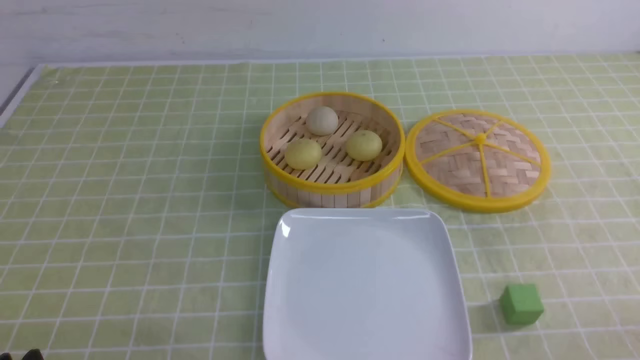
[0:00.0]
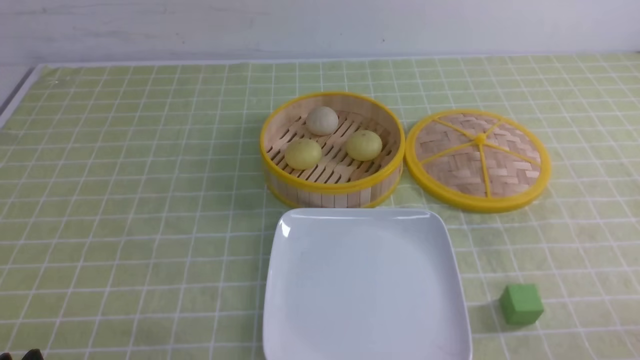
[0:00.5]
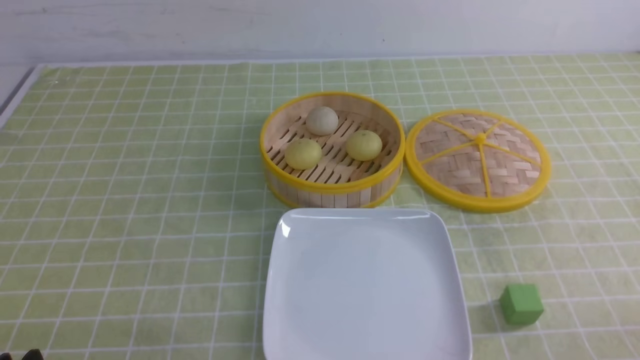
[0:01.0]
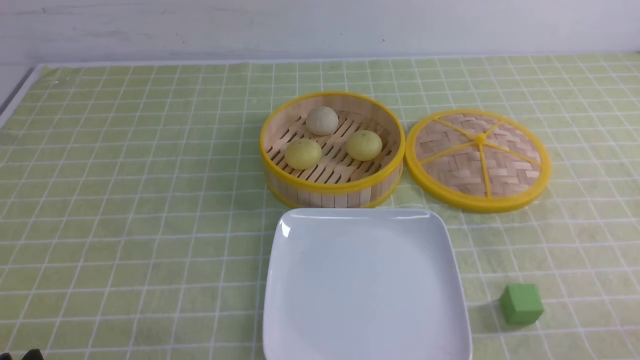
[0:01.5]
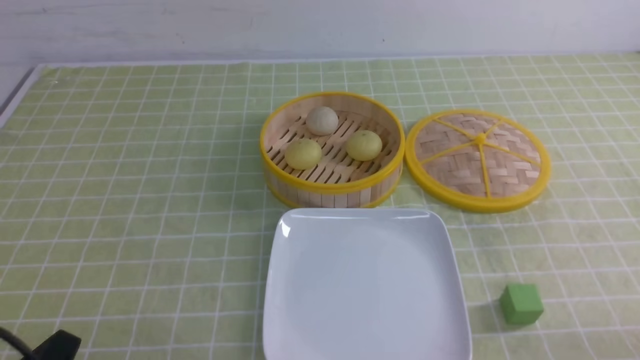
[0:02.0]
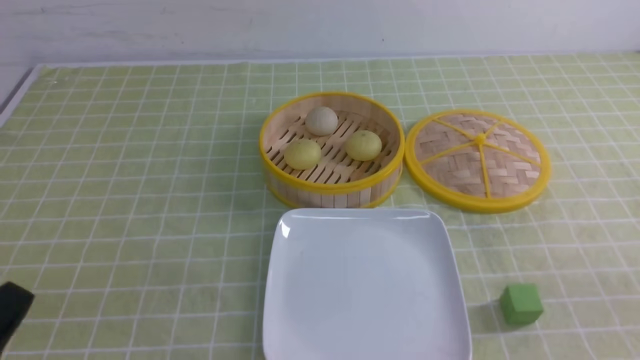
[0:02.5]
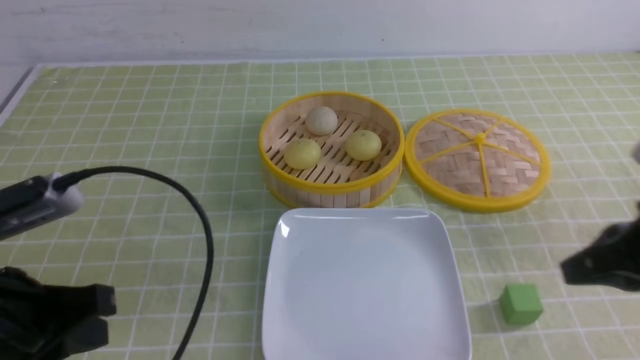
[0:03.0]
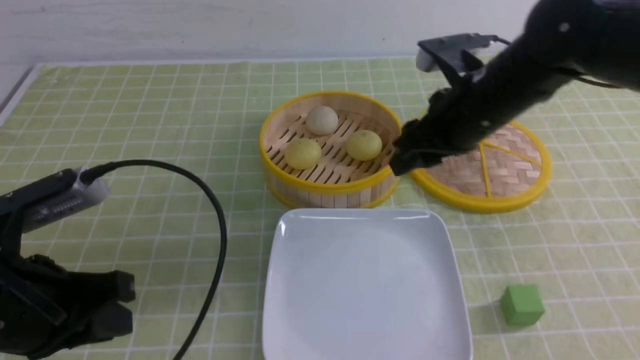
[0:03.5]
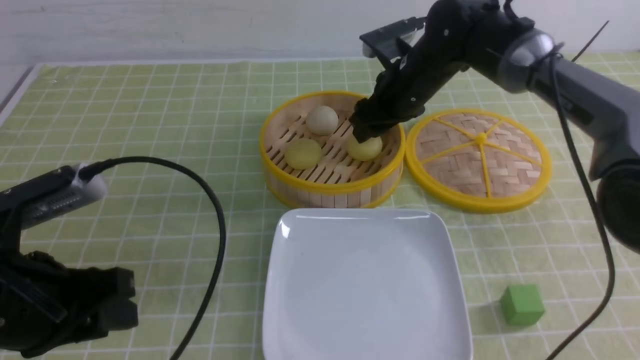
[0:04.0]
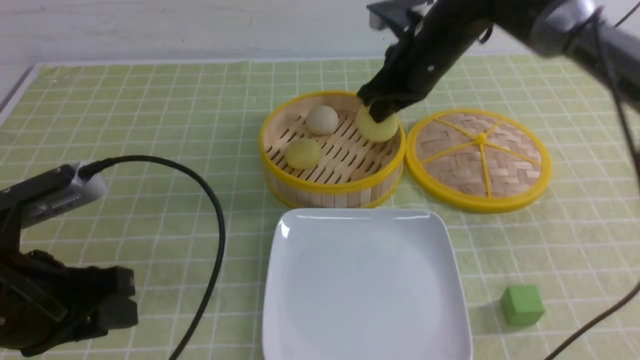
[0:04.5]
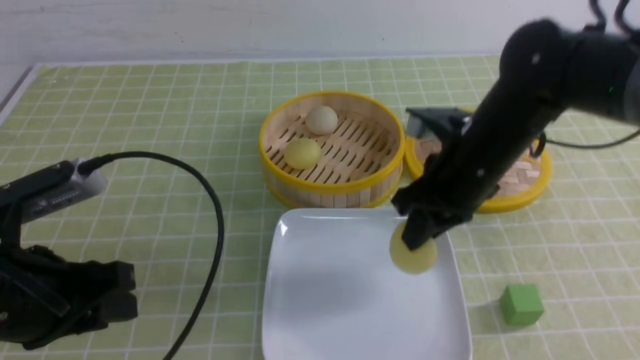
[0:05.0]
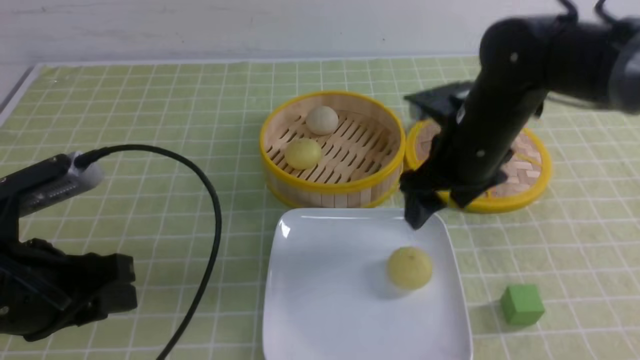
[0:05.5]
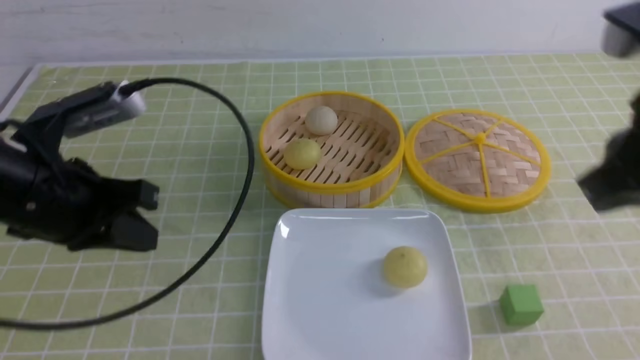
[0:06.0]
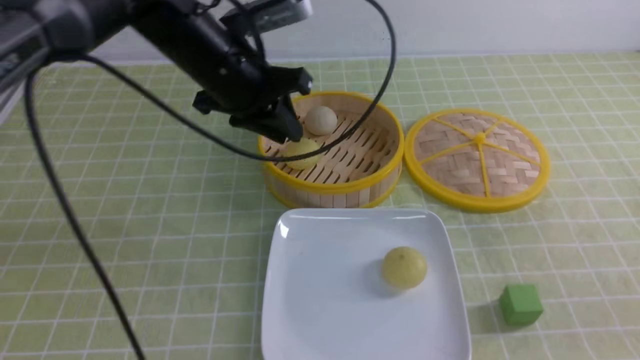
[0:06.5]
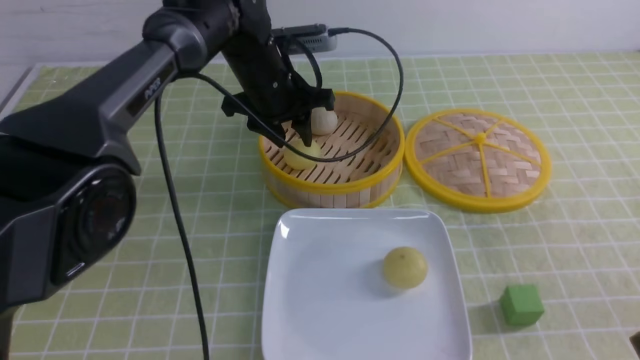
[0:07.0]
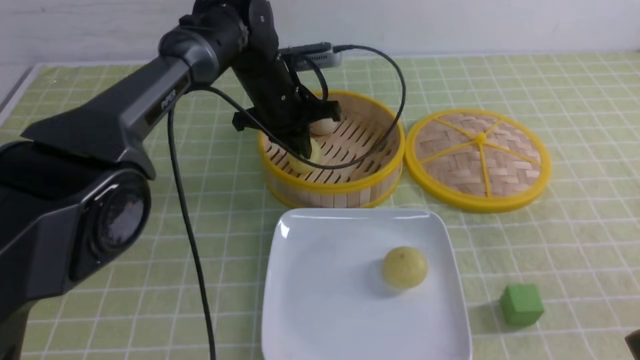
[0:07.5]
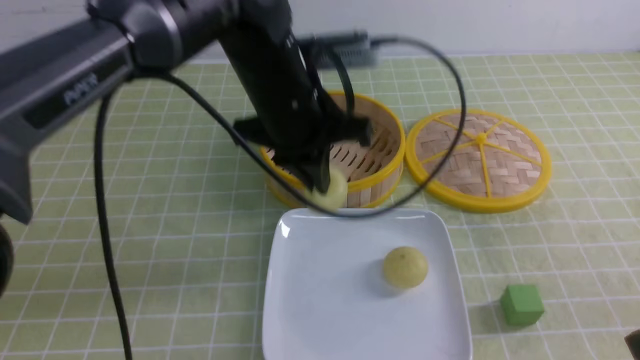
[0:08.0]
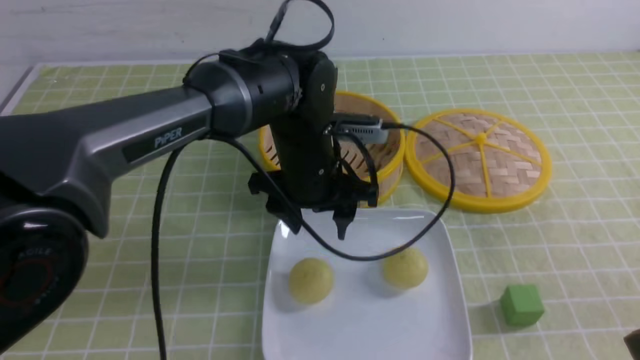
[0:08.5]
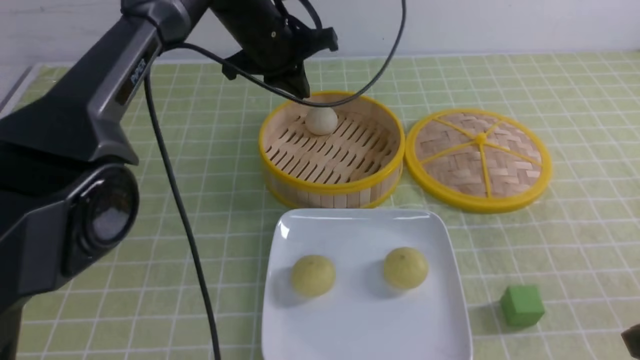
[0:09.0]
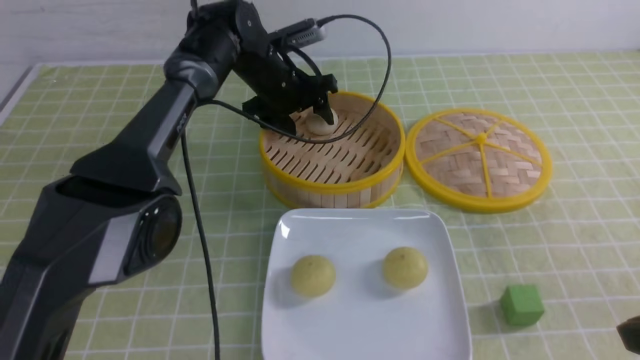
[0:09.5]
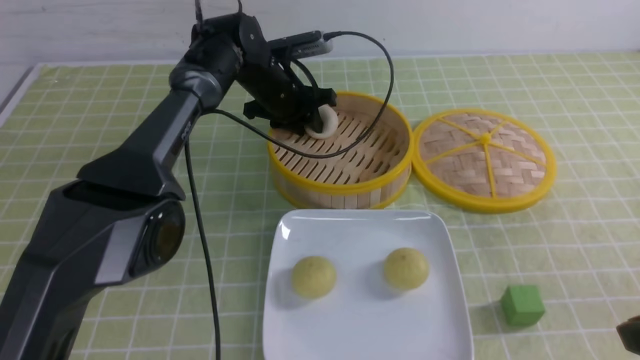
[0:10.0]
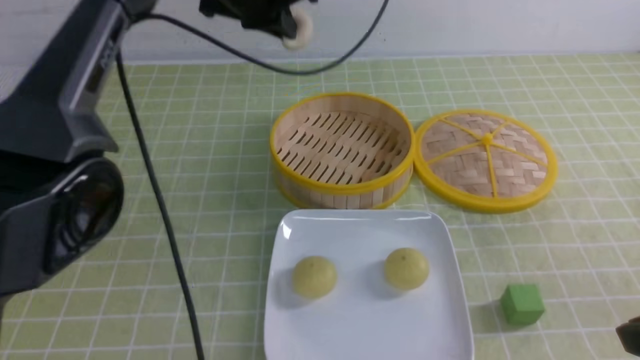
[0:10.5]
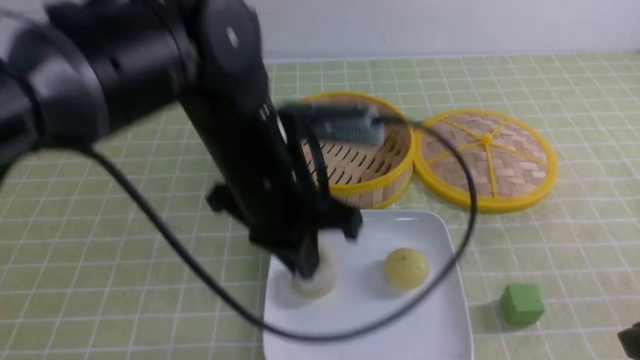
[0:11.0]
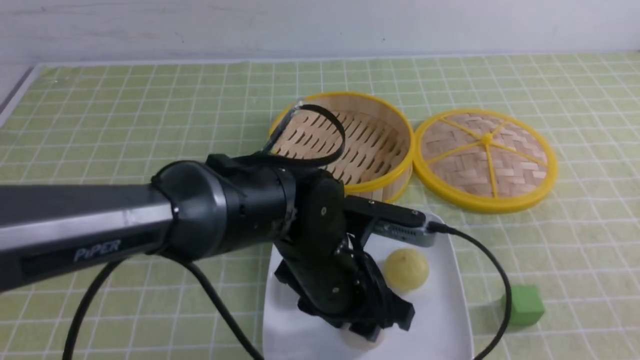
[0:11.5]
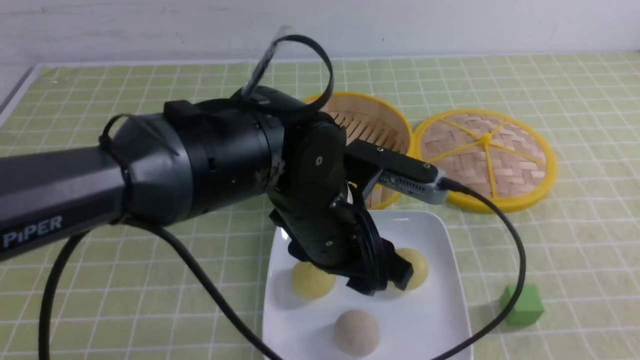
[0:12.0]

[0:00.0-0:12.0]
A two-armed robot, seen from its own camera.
Step, 0:00.0 to 0:04.0: use the right arm to grab the steamed stuffed bun that is closest to it.
Step, 0:04.5 to 0:05.0: use the right arm to put the steamed stuffed bun into the plate.
Step, 0:05.5 to 0:07.0: use the left arm to grab the steamed stuffed bun that is closest to it.
Step, 0:07.5 to 0:08.0: use the left arm to put the steamed stuffed bun into the plate.
Step, 0:08.5 to 0:10.0: use the left arm to grab the steamed stuffed bun that is closest to it.
Step, 0:10.5 to 0:11.5: use the left arm to put the steamed stuffed bun into the plate.
0:02.0 to 0:04.0: The right gripper shifts some 50 cm forward and to the left, and closes and opens again; the left gripper is displaced forward and upward by roughly 15 cm, and closes and opens again.
0:04.0 to 0:06.0: The left gripper moves forward, approximately 10 cm, and closes, while the right gripper shifts roughly 35 cm backward, upward and to the right, and closes up.
0:06.0 to 0:08.0: The right gripper goes roughly 15 cm downward and backward. The left gripper shifts approximately 20 cm to the right and forward, and opens, then closes once more.
0:08.0 to 0:10.0: The left gripper heads forward and downward, covering about 20 cm, and opens, then closes once more.
0:10.0 to 0:12.0: The right gripper is displaced backward by roughly 10 cm. The left gripper goes approximately 30 cm backward, and opens up.

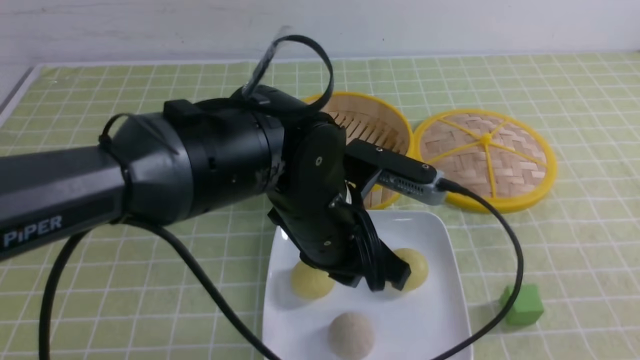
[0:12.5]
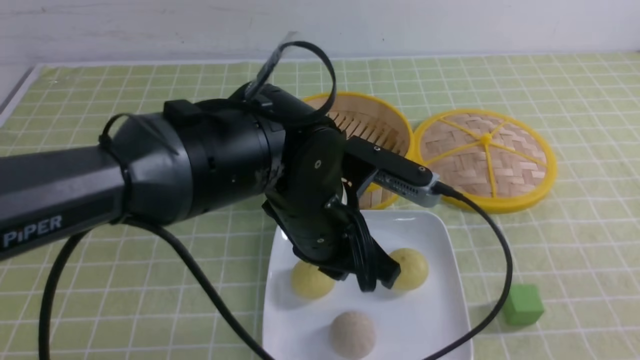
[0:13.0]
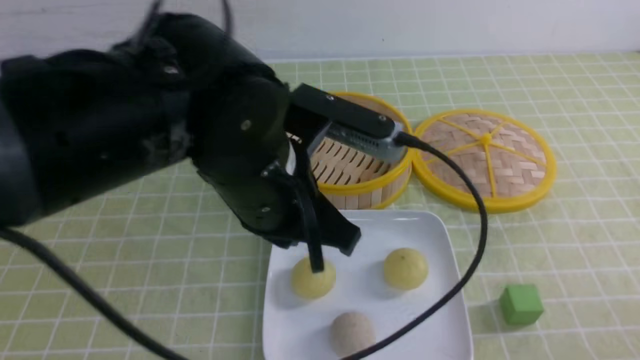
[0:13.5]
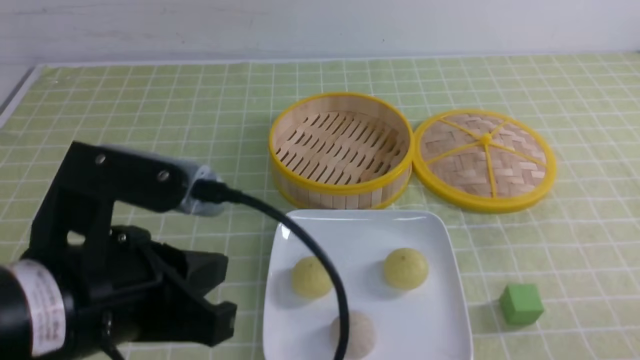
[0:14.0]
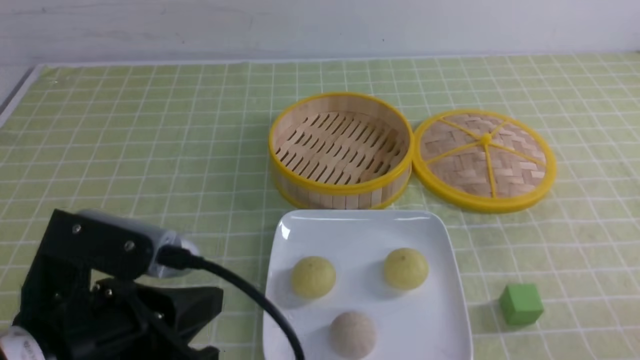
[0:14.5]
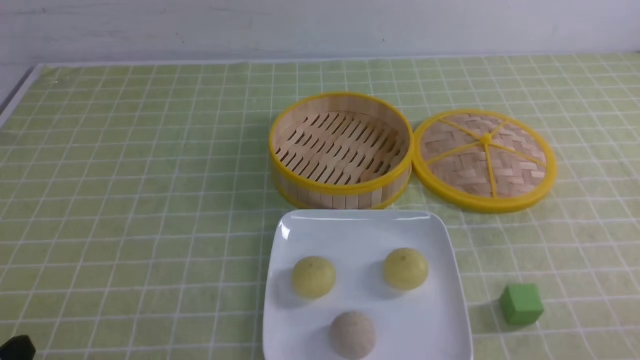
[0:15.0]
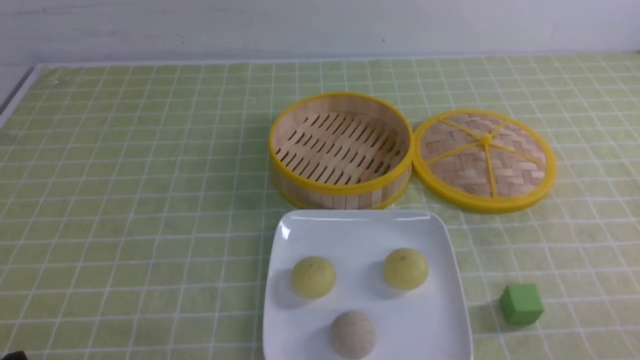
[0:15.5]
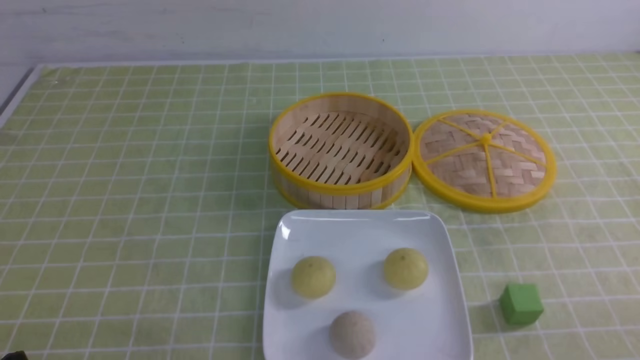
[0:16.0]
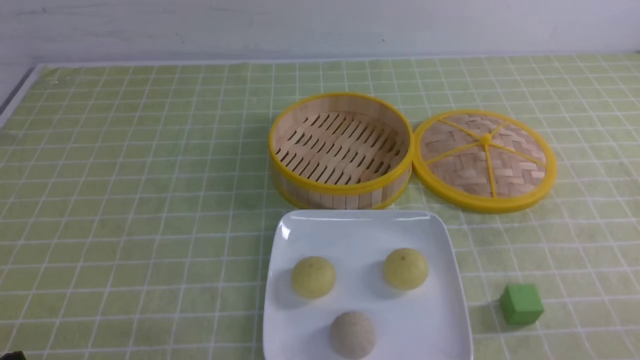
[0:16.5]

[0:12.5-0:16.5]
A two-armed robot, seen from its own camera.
0:12.5 to 0:14.5: The right gripper shifts some 10 cm downward; the left gripper travels to the left and backward by some 25 cm.
0:14.5 to 0:16.5: The left gripper shifts some 15 cm downward, to the left and backward.
